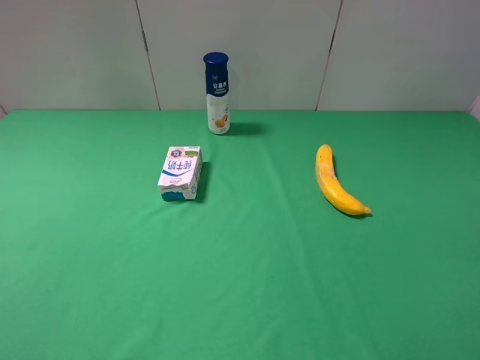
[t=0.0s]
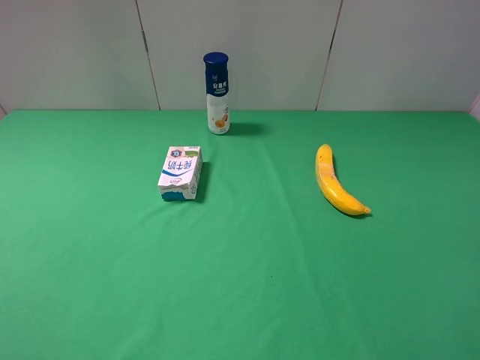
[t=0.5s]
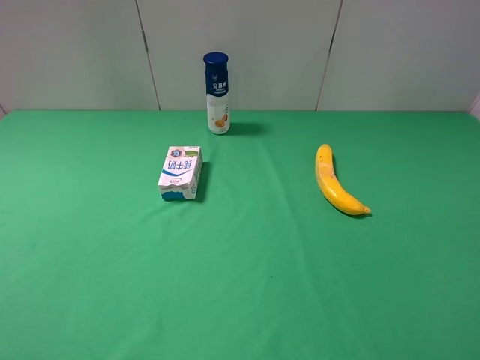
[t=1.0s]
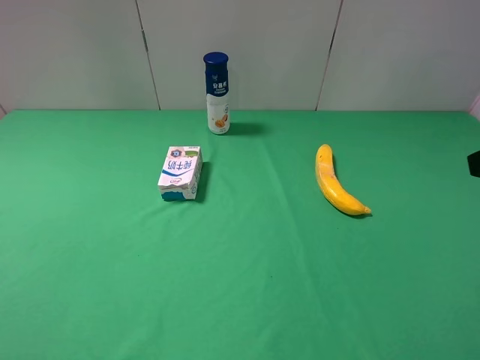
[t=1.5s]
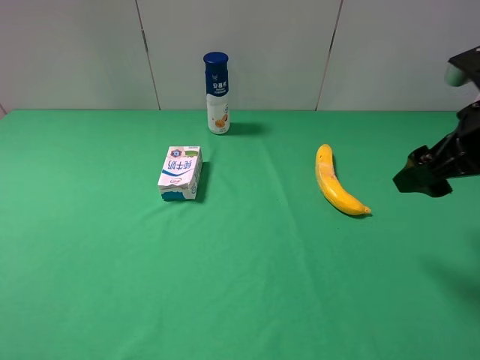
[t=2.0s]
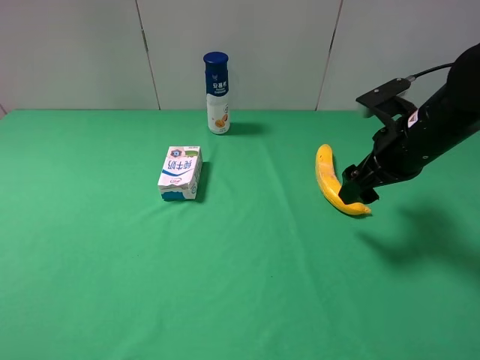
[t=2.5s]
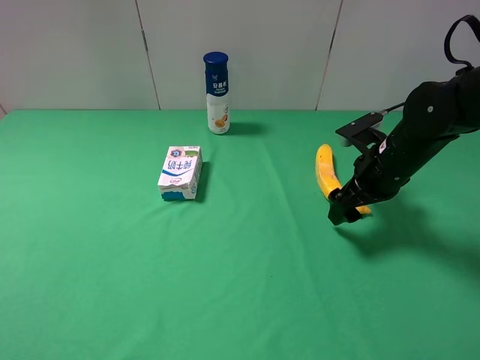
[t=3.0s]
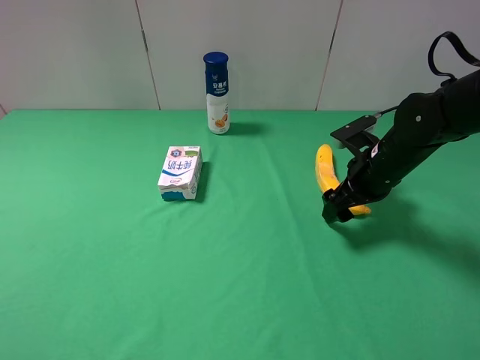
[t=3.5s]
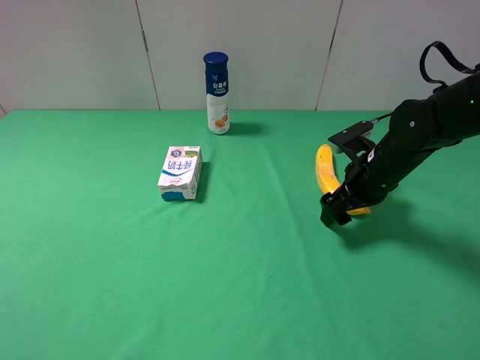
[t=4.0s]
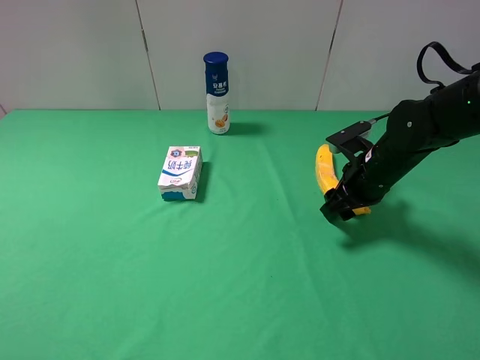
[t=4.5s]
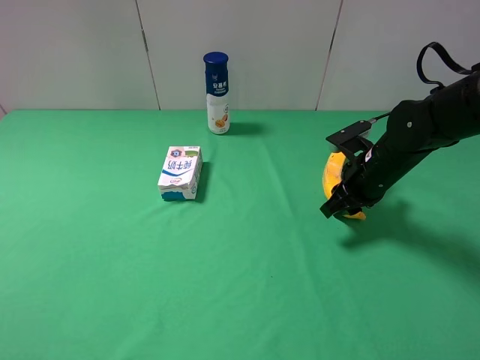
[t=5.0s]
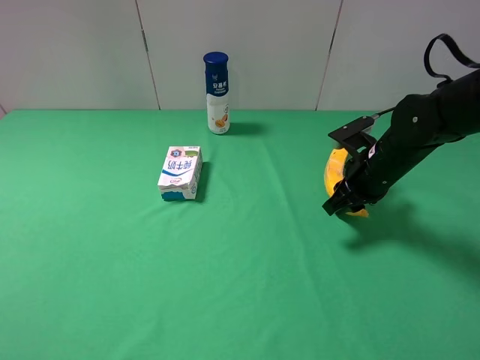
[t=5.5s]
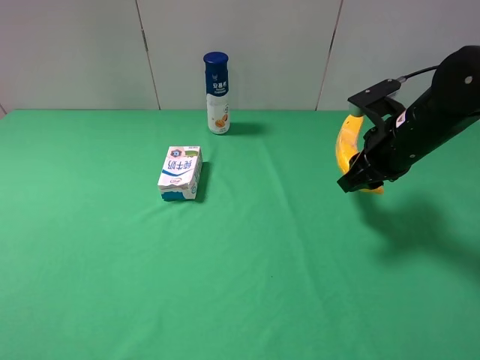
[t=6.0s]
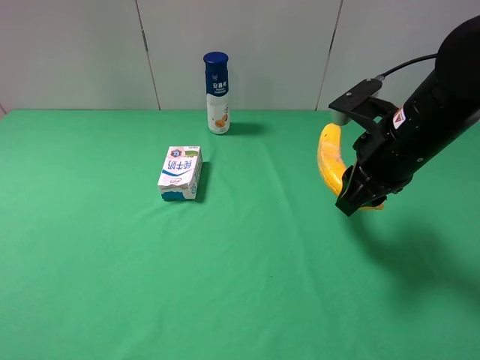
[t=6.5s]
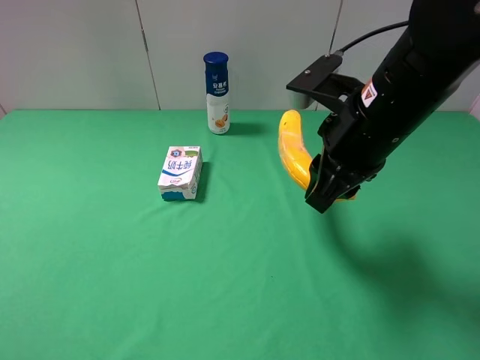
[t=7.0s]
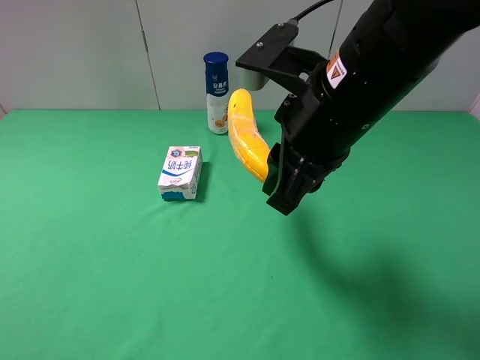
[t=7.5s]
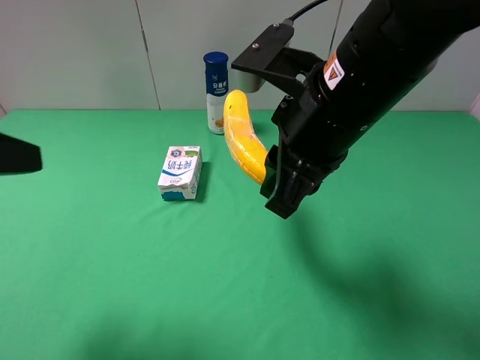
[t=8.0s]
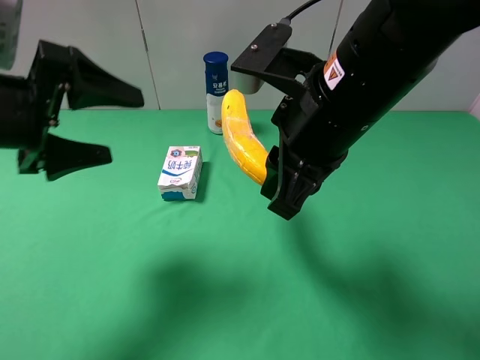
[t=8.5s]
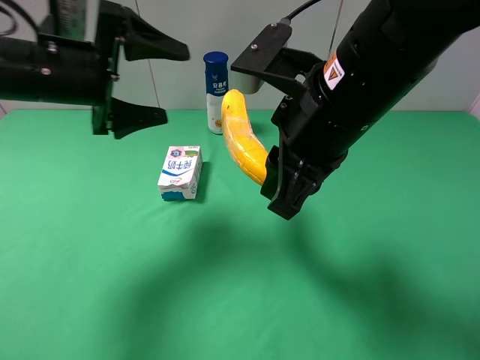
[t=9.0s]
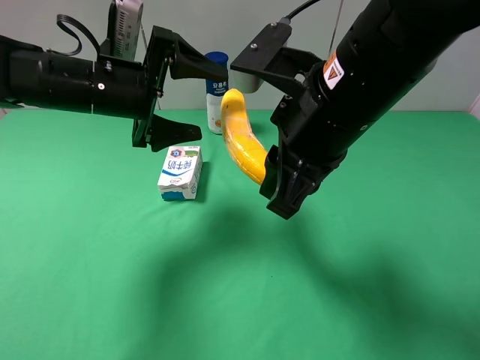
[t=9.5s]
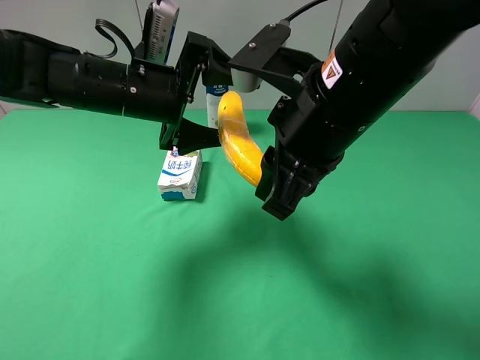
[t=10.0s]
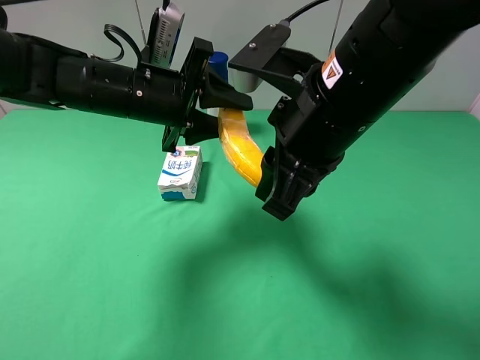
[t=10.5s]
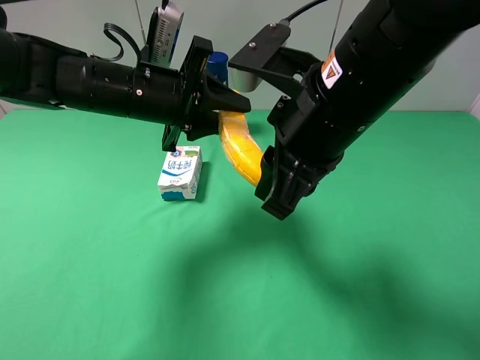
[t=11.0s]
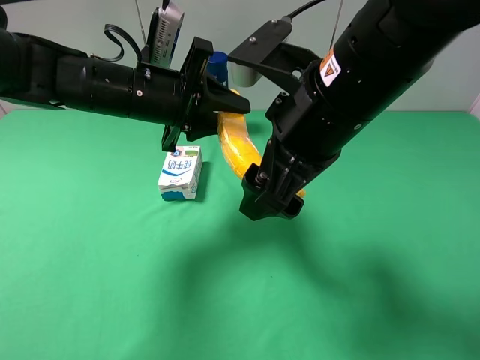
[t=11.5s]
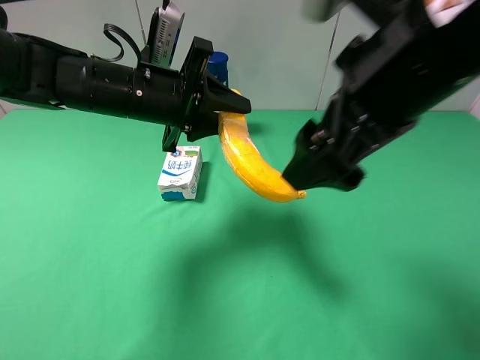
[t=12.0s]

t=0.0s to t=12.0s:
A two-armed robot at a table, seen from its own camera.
Task of the whole recording: use the right gripper to pick up the item and transfer it from the right gripper to the left gripper.
Step, t=5.0s to t=12.0s: Pass the banana to the left gripper.
t=0.0s to t=2.0s: The right gripper goes roughly 20 cm forward.
t=2.0s to t=4.0s: The right gripper goes approximately 15 cm downward and forward.
t=4.0s to t=6.0s: The right gripper goes some 10 cm upward, and closes.
t=6.0s to t=8.0s: The right gripper moves to the left, backward and upward, roughly 20 cm. The left gripper is displaced forward by some 10 cm.
t=8.0s to t=10.0s: The left gripper travels forward, to the right and downward by approximately 25 cm.
t=10.0s to t=12.0s: The right gripper travels upward by about 5 cm, and opens up, while the left gripper closes up.

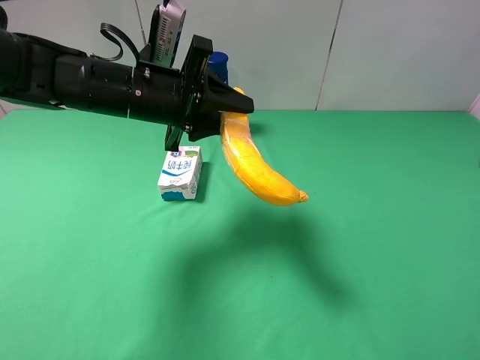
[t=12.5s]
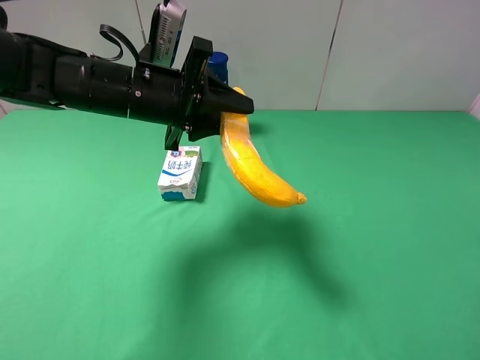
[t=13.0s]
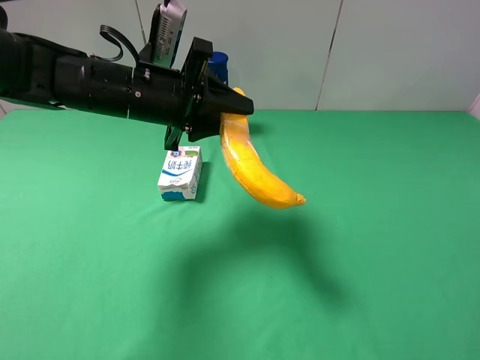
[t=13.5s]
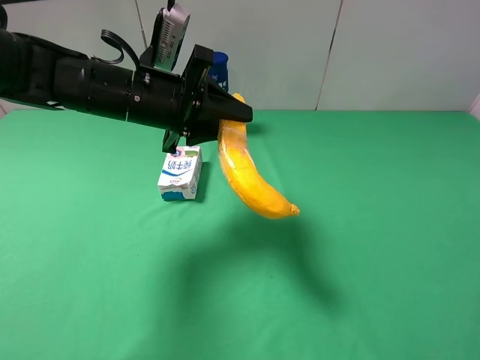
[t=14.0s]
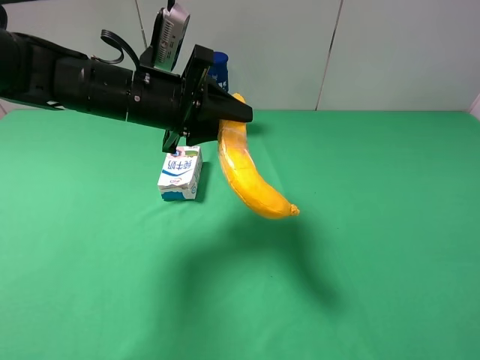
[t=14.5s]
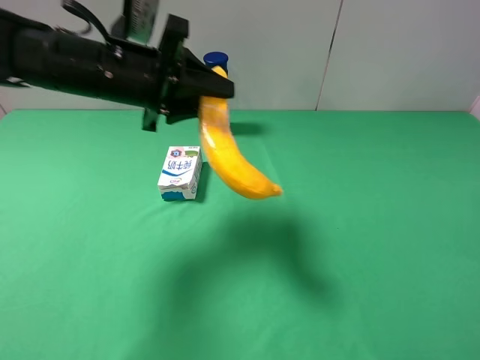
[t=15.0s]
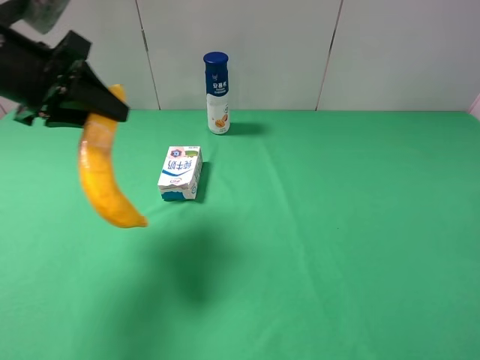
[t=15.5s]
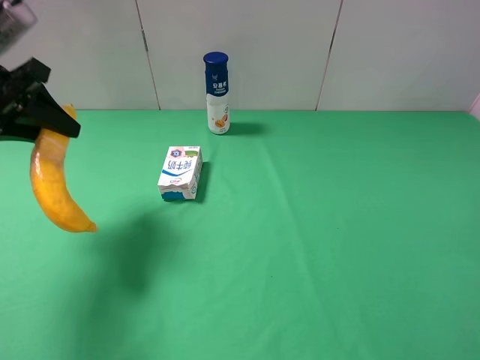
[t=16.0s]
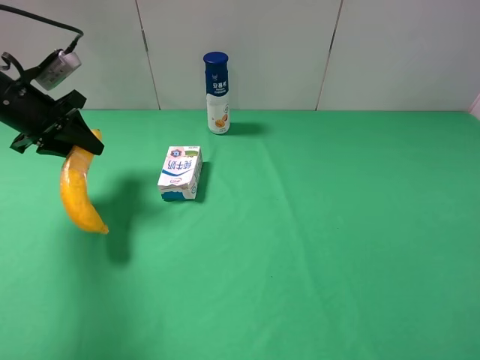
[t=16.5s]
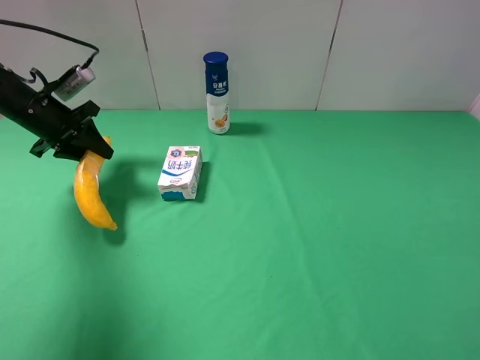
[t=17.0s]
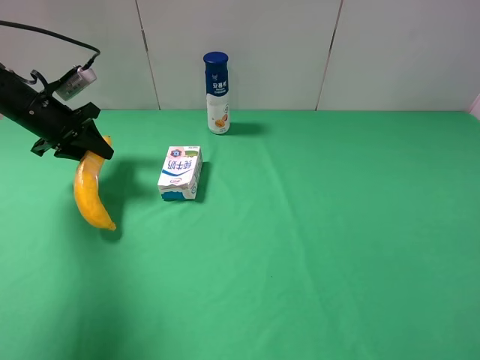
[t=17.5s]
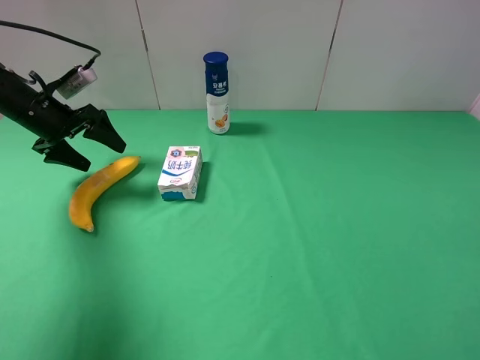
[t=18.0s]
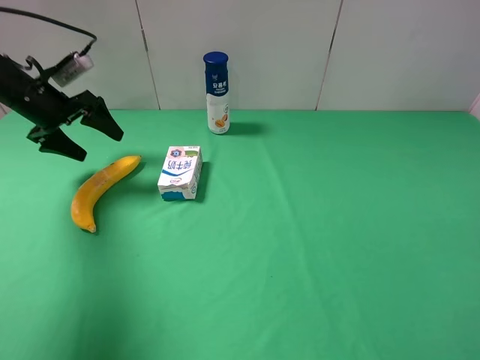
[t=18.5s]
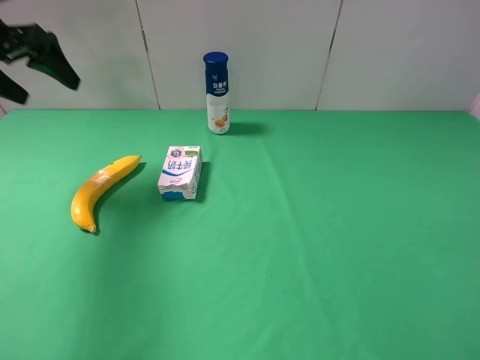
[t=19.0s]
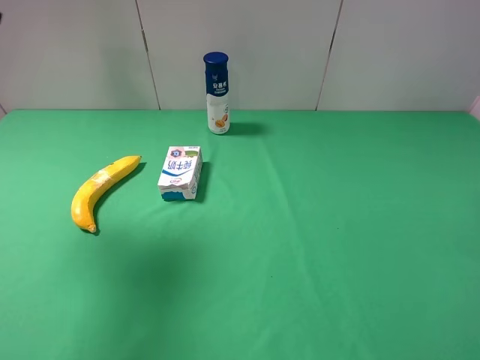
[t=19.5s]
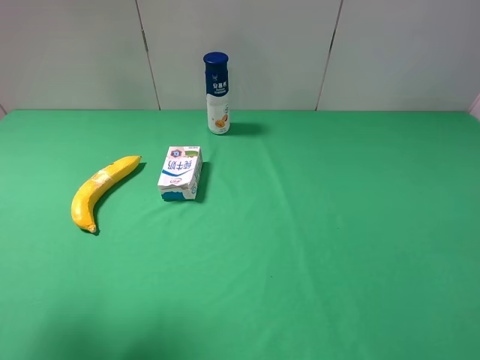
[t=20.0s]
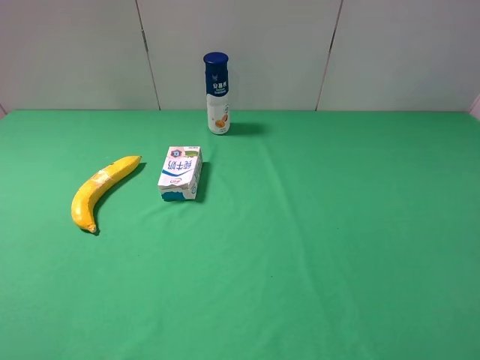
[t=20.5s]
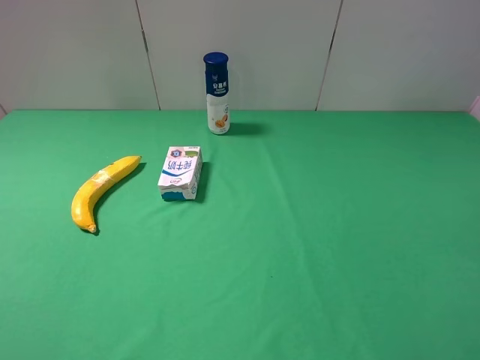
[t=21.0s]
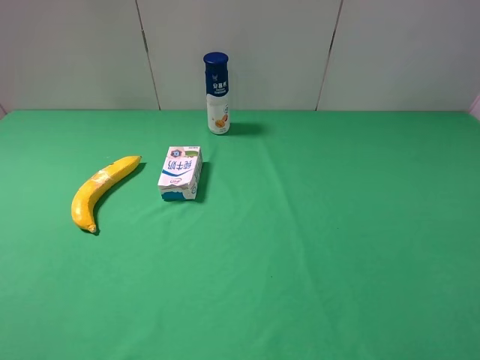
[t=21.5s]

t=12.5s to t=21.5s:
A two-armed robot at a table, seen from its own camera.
Task of the whole recording: use the right gripper to pick up the item and transfer it from the right gripper to the left gripper.
Step, t=12.5s to t=17.5s: The left gripper places banana on the left side of the table.
t=12.5s to t=14.5s: The right gripper heads downward, to the right and backward, covering approximately 15 cm.
t=14.5s to t=17.0s: The left gripper moves to the left and forward, some 20 cm.
t=17.0s to t=19.5s: The left gripper shifts roughly 30 cm upward and backward, and opens.
t=19.5s to t=21.5s: The left gripper shifts roughly 25 cm backward and downward.
